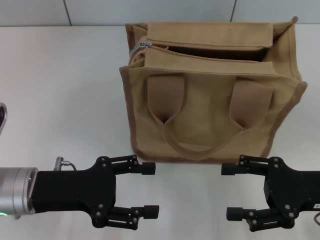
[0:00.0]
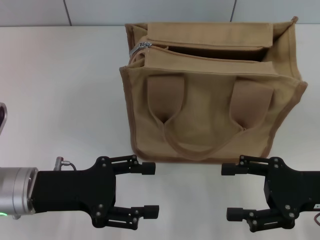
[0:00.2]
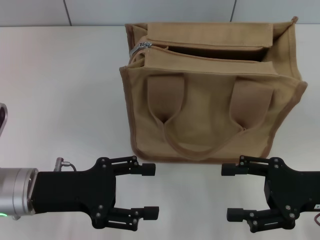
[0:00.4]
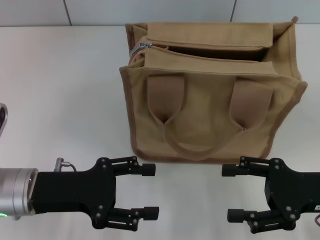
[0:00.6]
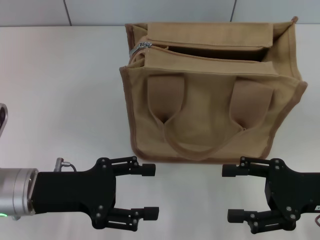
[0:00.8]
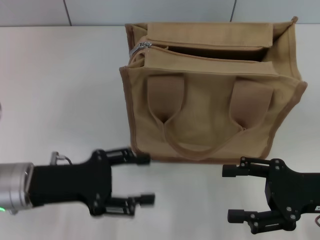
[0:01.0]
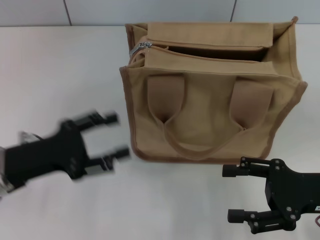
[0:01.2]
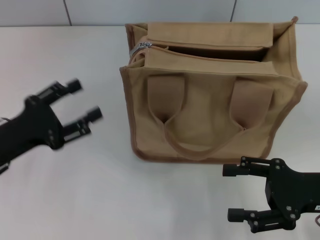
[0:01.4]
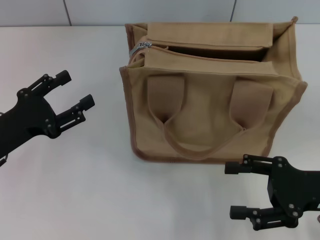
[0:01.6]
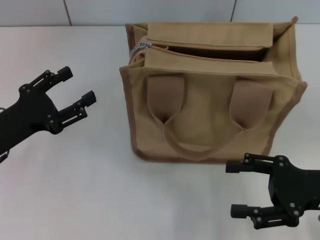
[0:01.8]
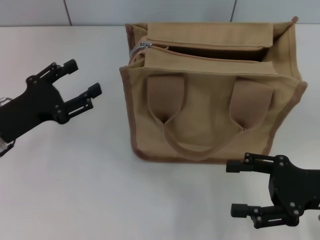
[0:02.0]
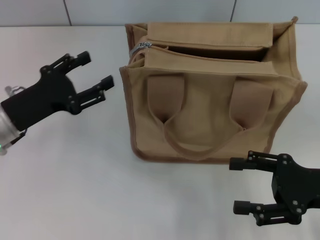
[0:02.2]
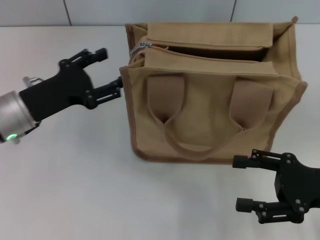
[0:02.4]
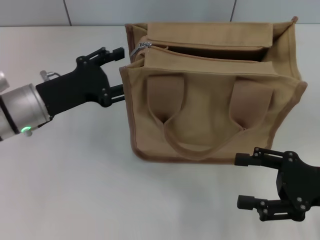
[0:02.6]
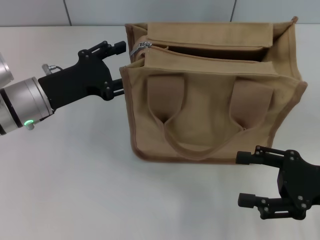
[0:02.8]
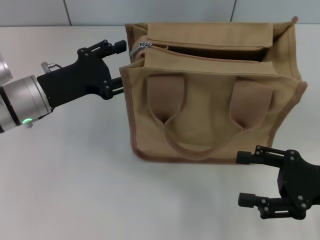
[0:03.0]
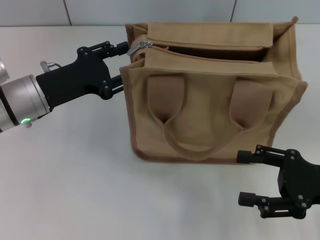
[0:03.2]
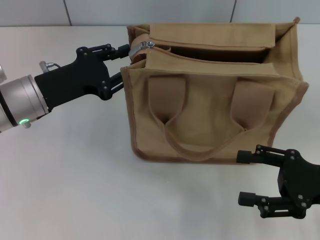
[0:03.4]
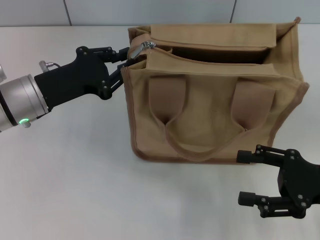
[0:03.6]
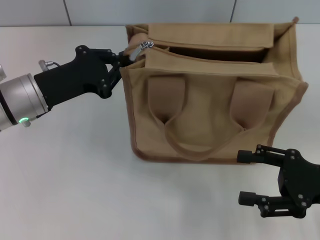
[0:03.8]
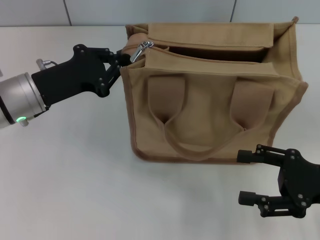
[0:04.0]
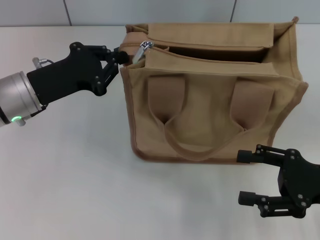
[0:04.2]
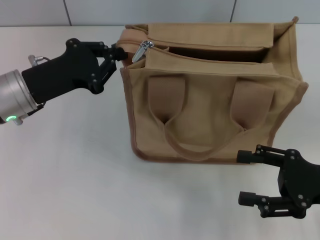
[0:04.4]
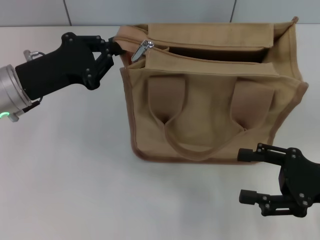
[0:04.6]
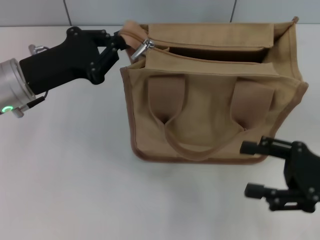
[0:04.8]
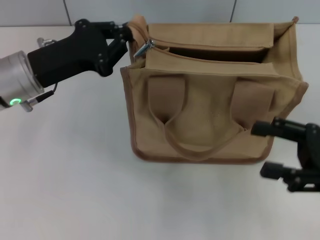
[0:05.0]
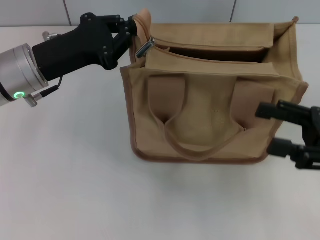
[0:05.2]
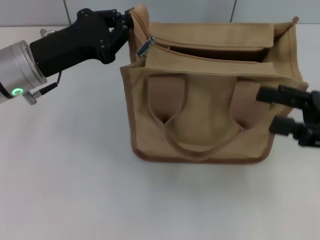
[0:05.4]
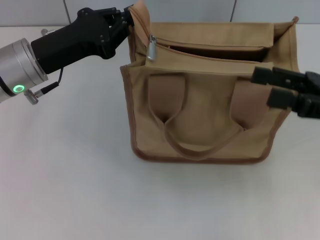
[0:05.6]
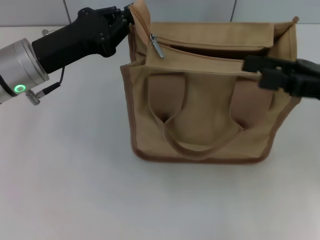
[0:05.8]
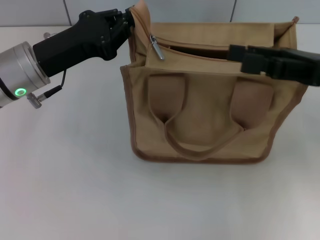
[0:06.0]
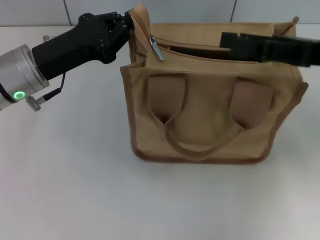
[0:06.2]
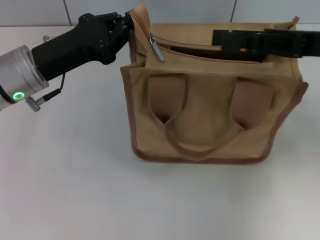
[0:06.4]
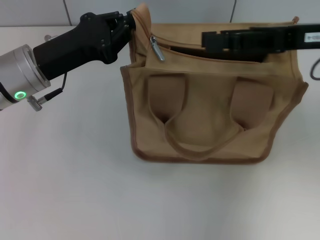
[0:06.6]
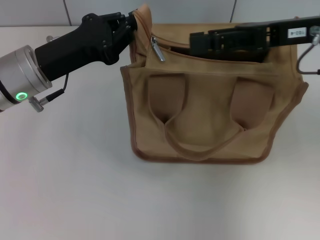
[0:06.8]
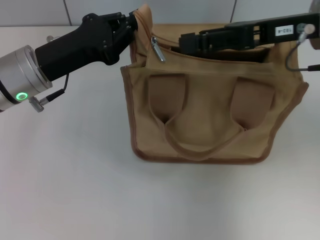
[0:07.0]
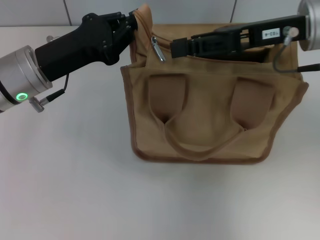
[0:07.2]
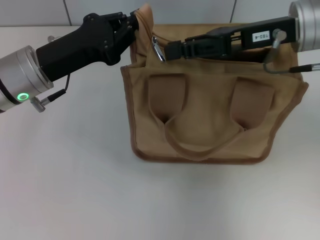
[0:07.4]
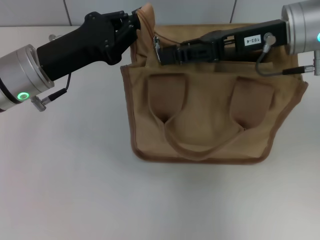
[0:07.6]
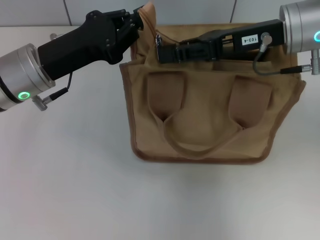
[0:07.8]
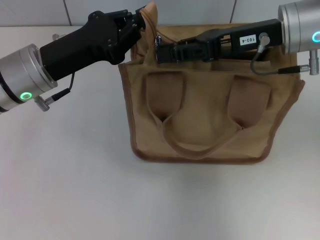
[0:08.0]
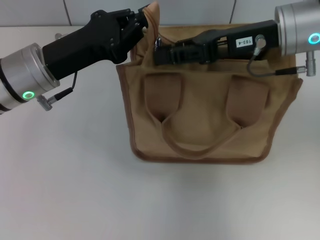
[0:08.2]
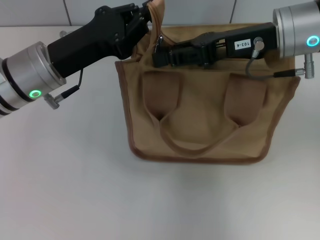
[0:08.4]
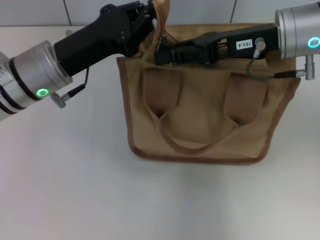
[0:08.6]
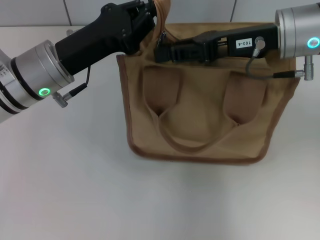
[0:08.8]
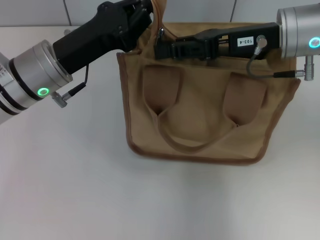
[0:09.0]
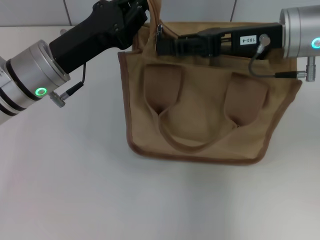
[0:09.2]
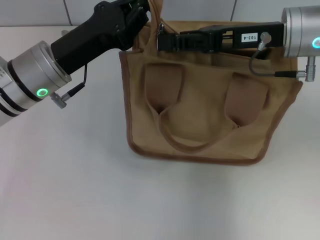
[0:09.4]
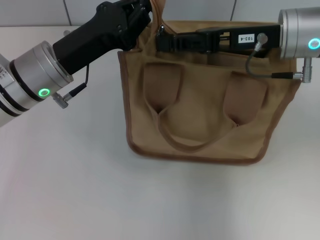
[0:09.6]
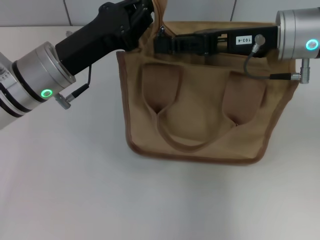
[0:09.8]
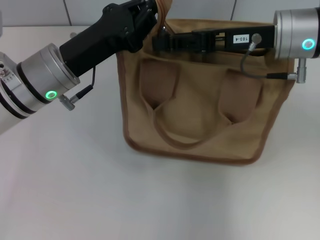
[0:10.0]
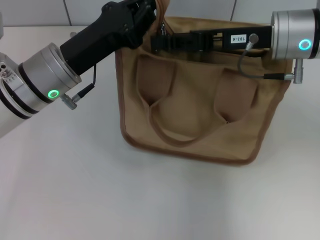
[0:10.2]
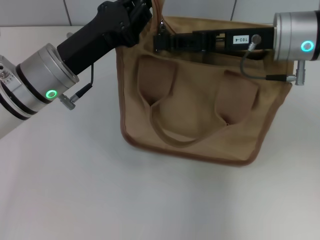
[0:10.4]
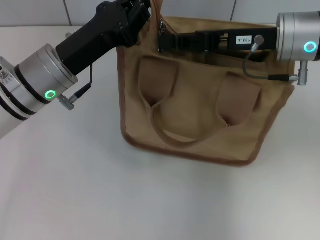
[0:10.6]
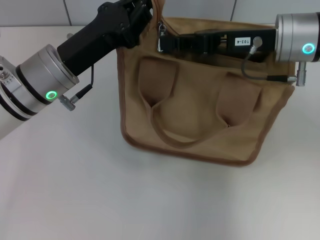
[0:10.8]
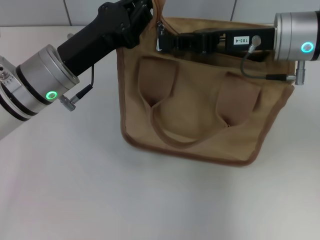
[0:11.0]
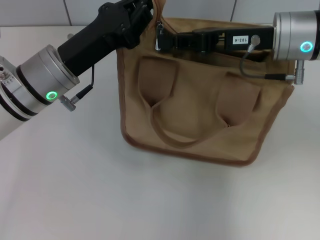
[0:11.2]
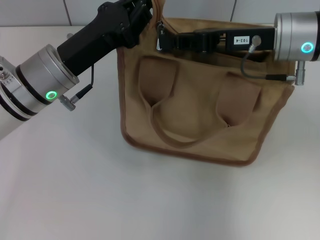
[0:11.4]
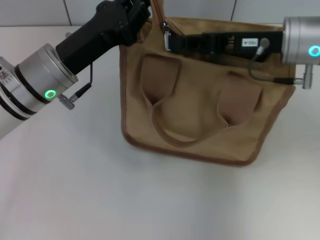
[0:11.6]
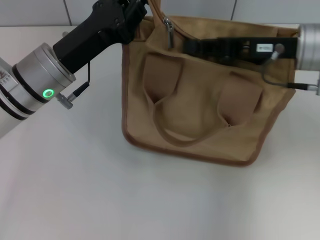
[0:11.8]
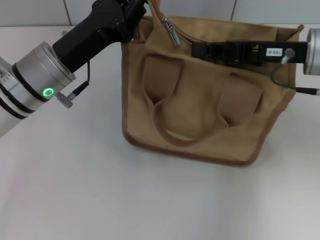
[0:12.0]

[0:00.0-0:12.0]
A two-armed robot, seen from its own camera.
0:00.0 to 0:01.6: The left gripper moves to the left, about 5 cm.
0:01.6 to 0:03.0: The left gripper is displaced forward and to the right by approximately 10 cm.
0:03.0 to 0:04.4: The left gripper closes.
0:04.4 to 0:06.0: The right gripper is displaced forward and upward by some 15 cm.
0:06.0 to 0:07.6: The right gripper moves to the left and forward, roughly 10 cm, and closes.
0:07.6 to 0:12.0: There are only small adjustments of the grippers.

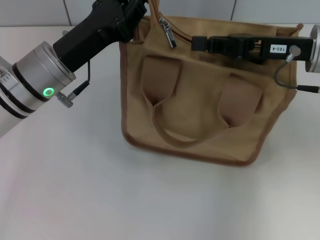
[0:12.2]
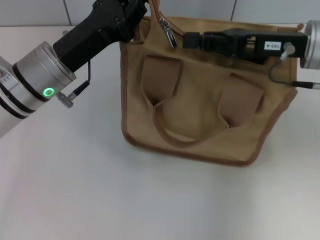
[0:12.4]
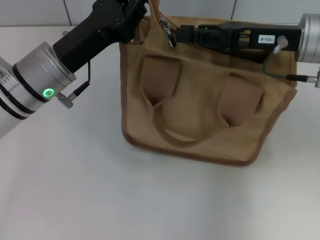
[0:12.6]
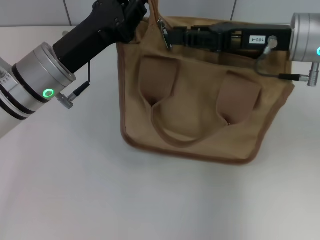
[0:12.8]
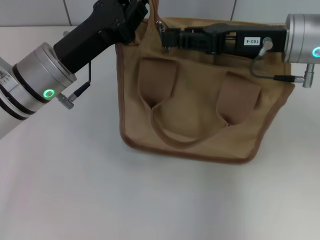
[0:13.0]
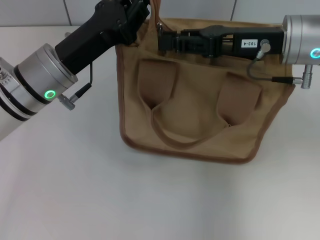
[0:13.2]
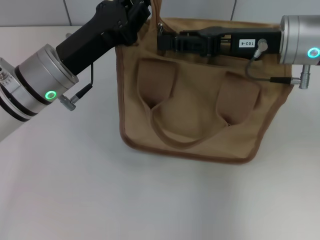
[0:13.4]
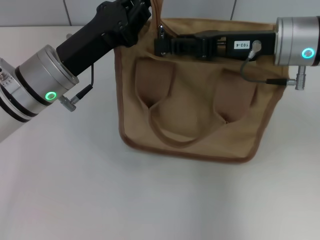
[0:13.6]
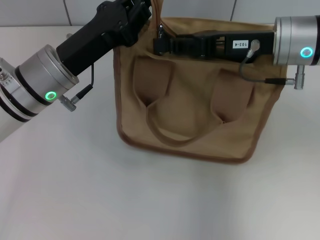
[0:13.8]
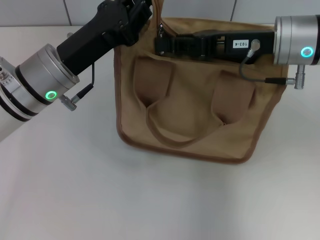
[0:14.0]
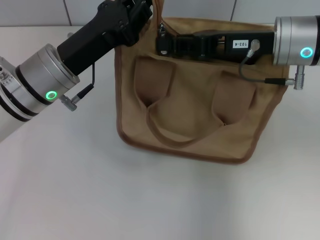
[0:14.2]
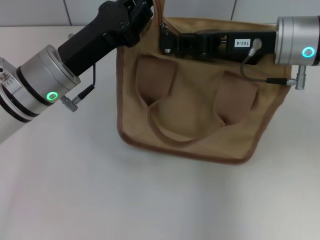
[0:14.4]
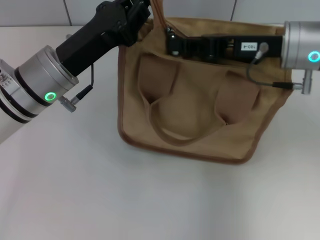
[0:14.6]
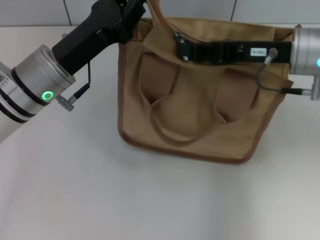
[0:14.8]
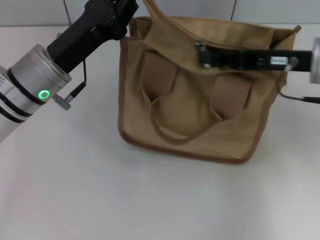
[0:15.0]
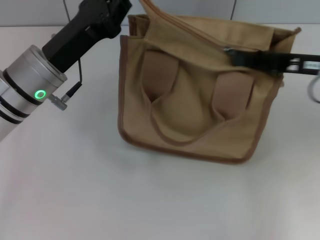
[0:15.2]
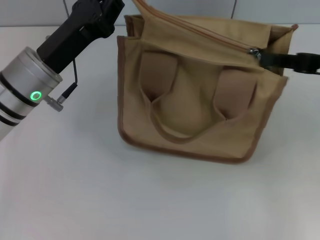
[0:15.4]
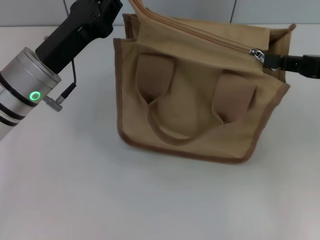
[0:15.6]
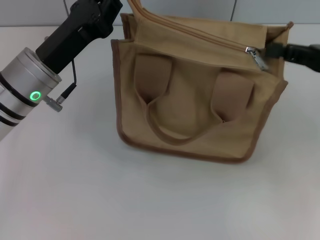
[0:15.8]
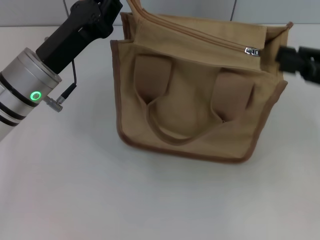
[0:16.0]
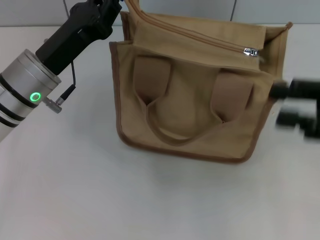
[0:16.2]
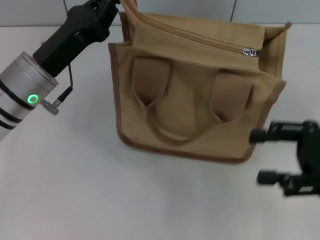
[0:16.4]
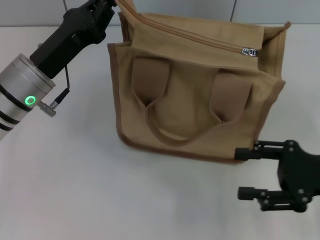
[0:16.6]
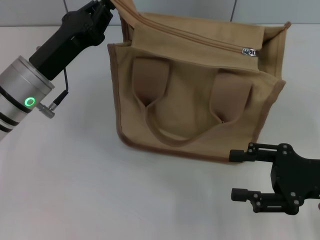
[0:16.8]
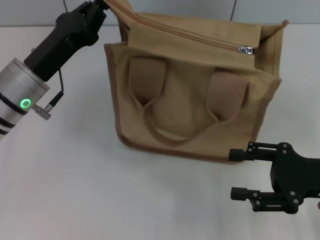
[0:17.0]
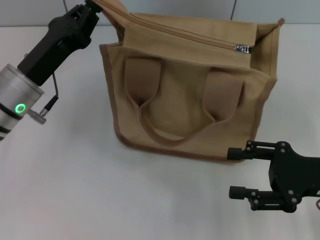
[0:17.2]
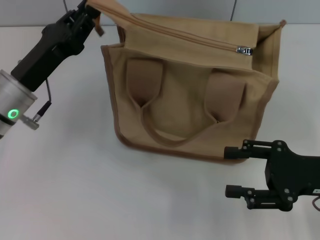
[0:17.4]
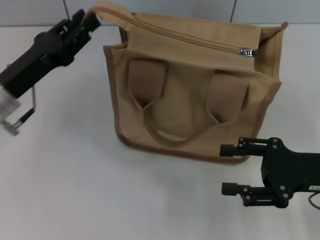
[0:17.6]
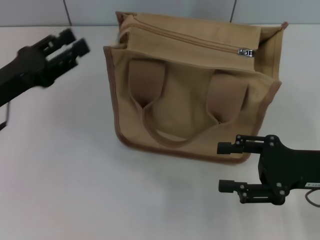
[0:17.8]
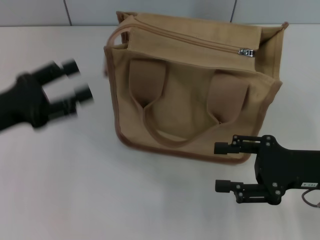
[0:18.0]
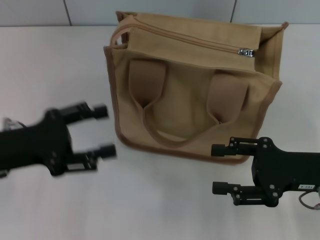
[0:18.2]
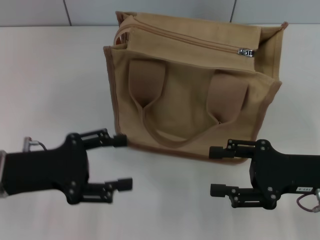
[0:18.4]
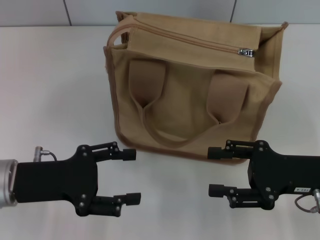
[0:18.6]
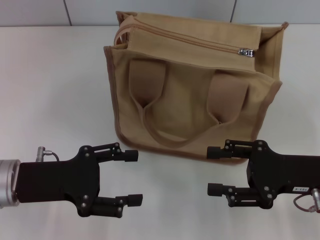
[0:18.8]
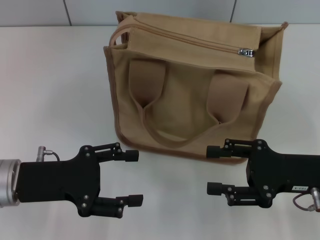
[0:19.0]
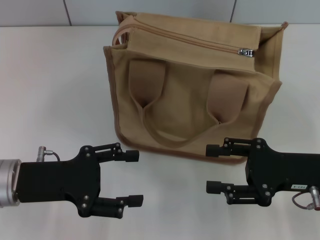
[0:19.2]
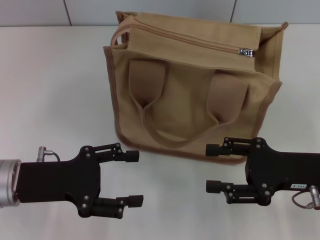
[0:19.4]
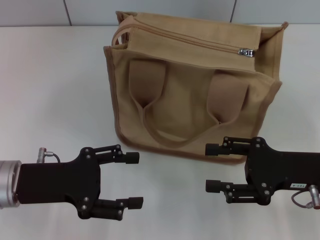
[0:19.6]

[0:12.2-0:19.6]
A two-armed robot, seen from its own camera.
Step, 0:12.2 to 0:15.6: Pull up the zipper with your right hand.
Step, 0:15.8 to 0:17.6: Grab the zipper with your left hand.
0:12.2 to 0:13.6: The right gripper opens its fingers.
0:13.6 to 0:15.2: The right gripper moves to the right, about 10 cm.
0:15.2 to 0:16.6: The right gripper is displaced backward and downward by approximately 10 cm, and opens.
0:16.6 to 0:18.2: The left gripper is displaced backward and to the left by about 10 cm, and opens its fingers.
0:18.2 to 0:19.6: The grippers stay close to where they were, moving slightly.

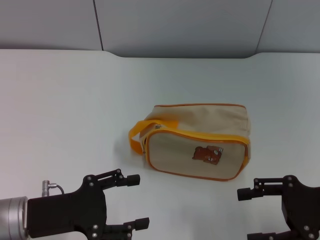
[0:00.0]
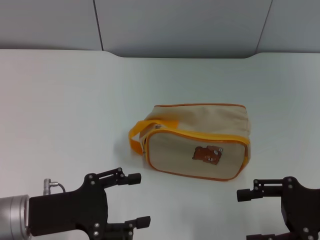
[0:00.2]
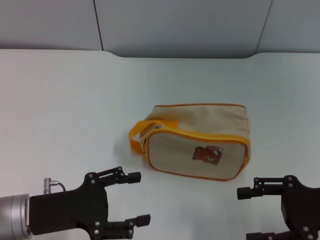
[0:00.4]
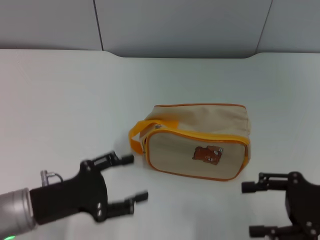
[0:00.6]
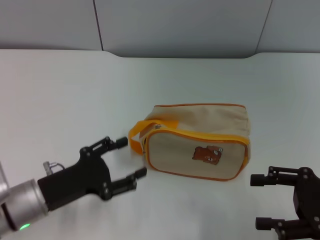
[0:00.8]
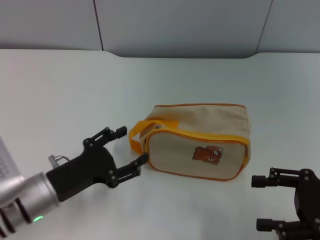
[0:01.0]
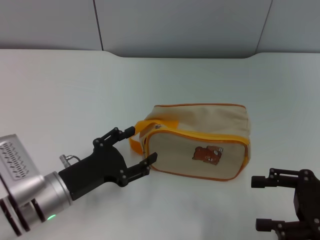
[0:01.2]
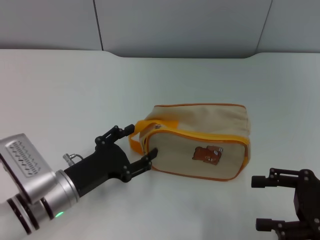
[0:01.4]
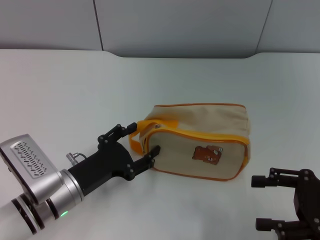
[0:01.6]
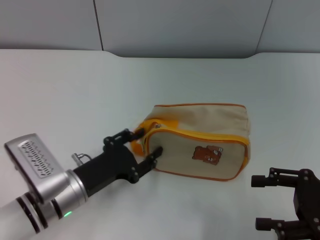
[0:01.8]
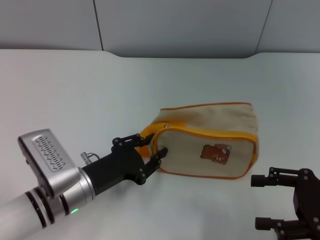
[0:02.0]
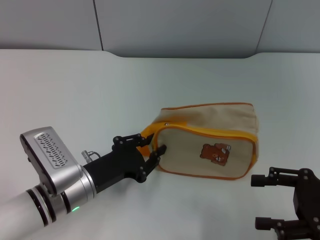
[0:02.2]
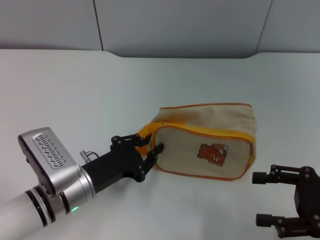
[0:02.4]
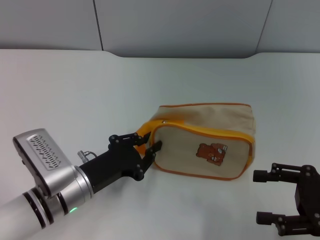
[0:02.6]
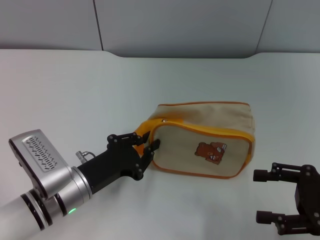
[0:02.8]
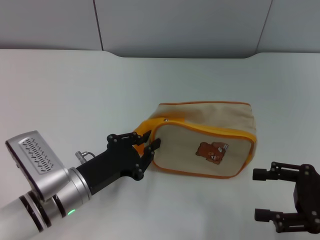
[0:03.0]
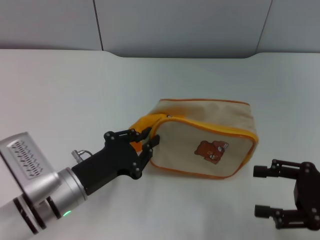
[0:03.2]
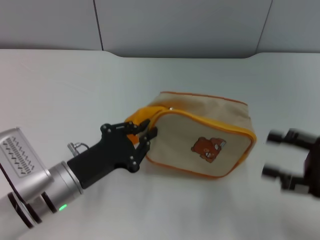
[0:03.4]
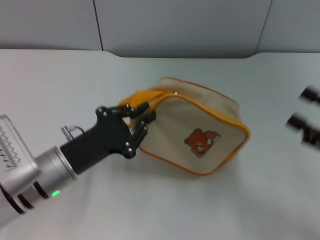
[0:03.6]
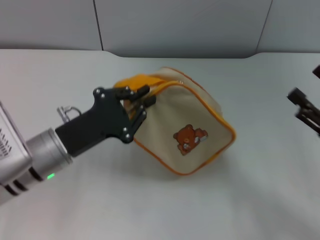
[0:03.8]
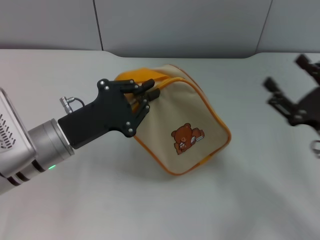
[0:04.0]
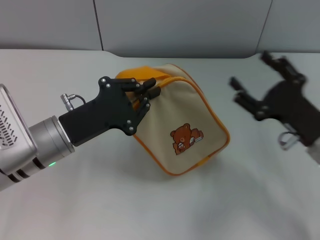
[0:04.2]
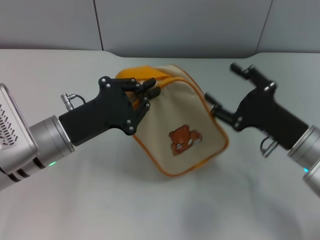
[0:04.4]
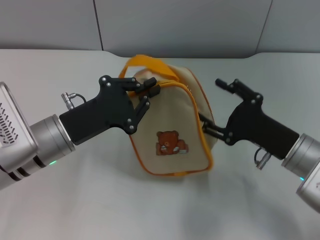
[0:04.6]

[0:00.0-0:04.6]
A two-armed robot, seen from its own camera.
Step, 0:00.0 to 0:03.4: Pick up the bag with left gripper.
0:00.0 to 0:01.6: The left gripper travels to the right by some 5 cm.
0:01.6 to 0:03.0: The left gripper closes its fingers.
0:03.0 to 0:04.6: The left gripper heads upward, covering roughly 5 cm, while the right gripper is displaced to the left and forward by approximately 10 cm.
